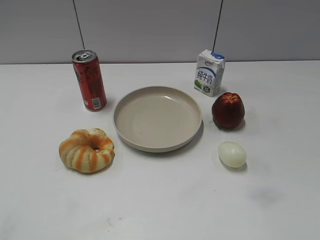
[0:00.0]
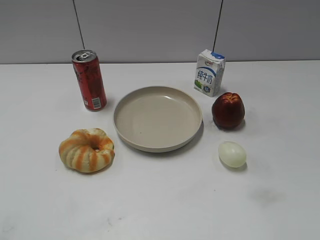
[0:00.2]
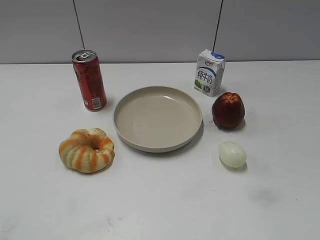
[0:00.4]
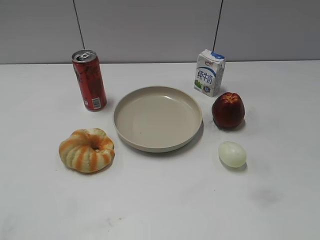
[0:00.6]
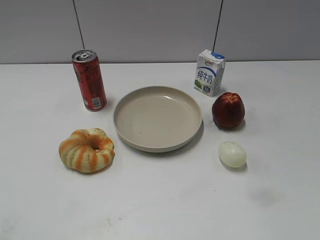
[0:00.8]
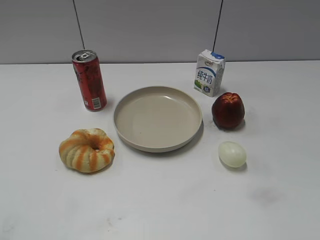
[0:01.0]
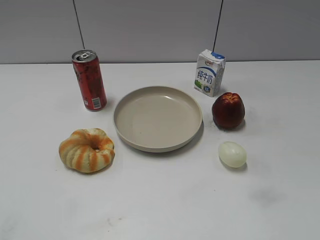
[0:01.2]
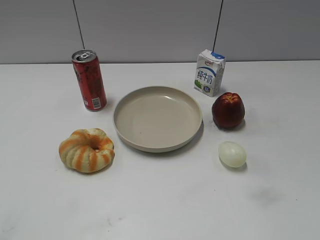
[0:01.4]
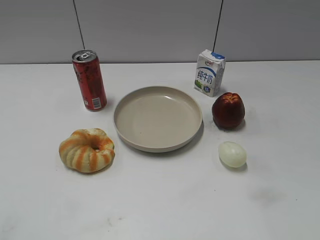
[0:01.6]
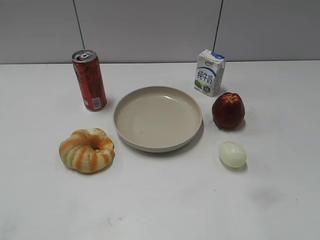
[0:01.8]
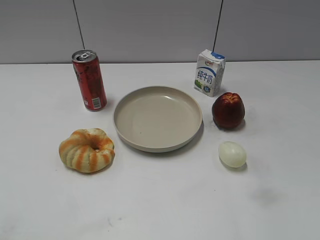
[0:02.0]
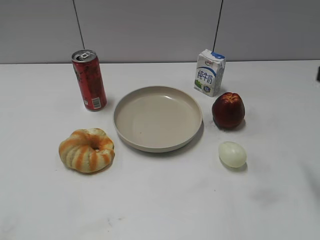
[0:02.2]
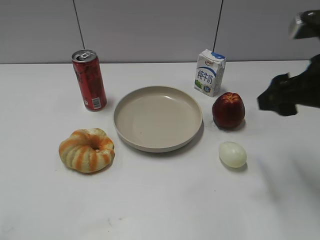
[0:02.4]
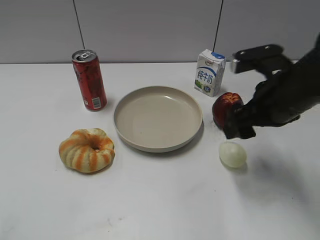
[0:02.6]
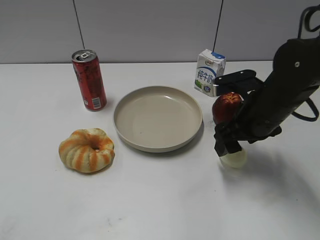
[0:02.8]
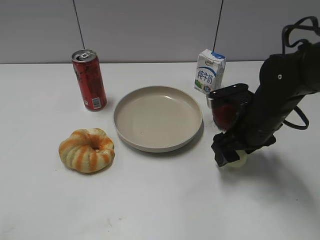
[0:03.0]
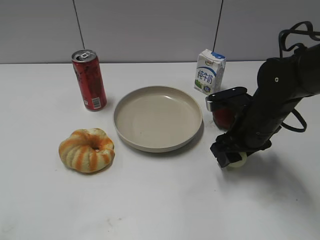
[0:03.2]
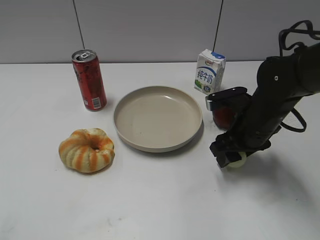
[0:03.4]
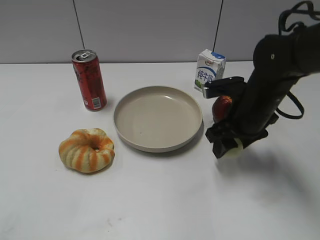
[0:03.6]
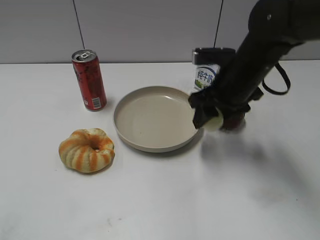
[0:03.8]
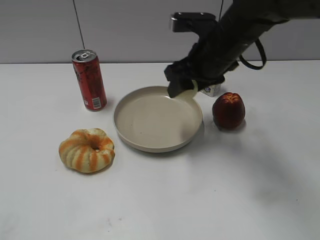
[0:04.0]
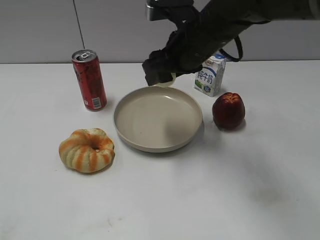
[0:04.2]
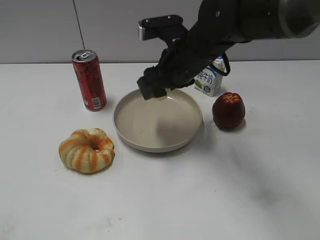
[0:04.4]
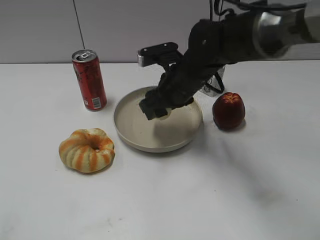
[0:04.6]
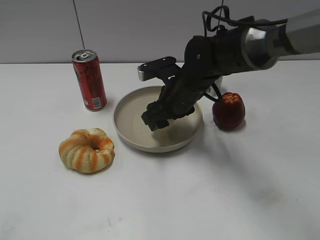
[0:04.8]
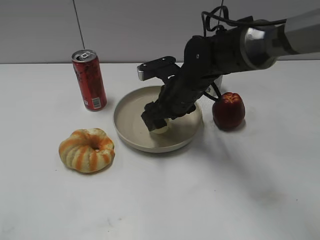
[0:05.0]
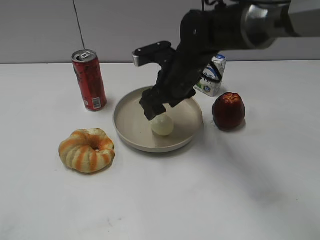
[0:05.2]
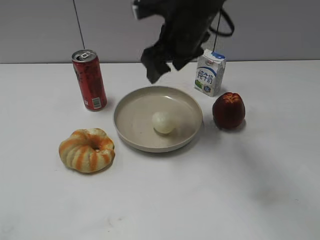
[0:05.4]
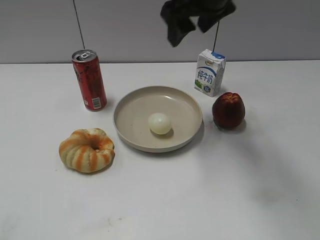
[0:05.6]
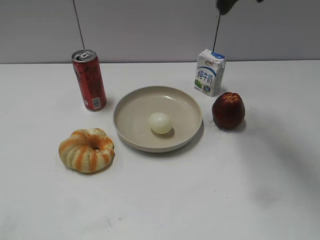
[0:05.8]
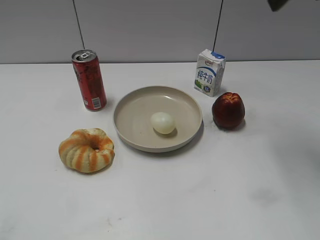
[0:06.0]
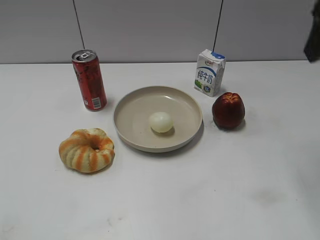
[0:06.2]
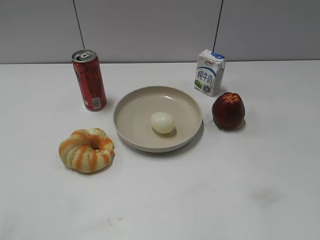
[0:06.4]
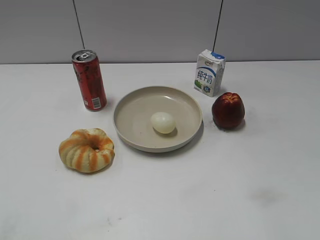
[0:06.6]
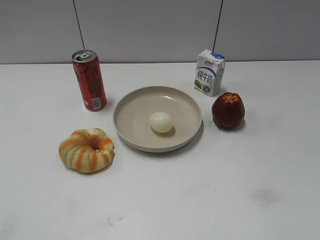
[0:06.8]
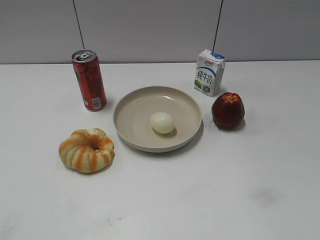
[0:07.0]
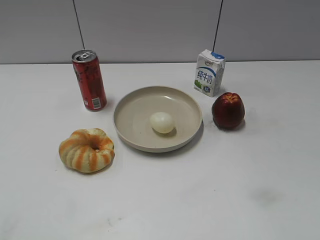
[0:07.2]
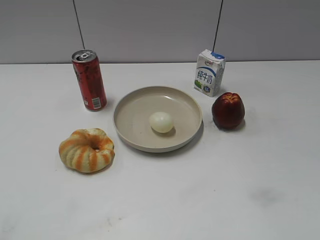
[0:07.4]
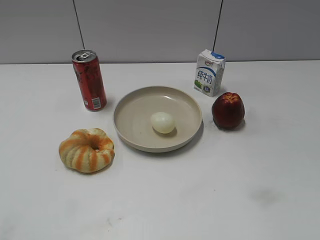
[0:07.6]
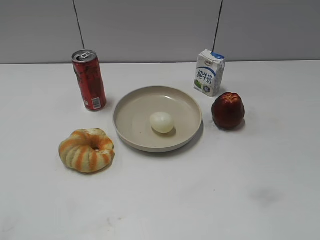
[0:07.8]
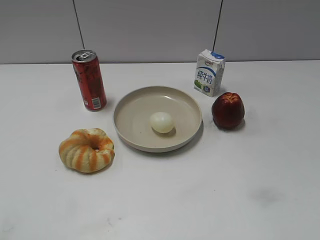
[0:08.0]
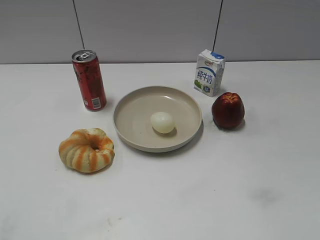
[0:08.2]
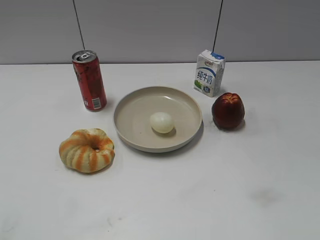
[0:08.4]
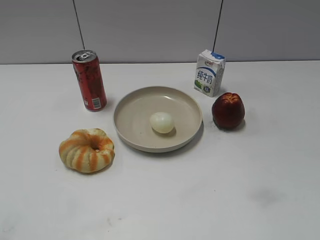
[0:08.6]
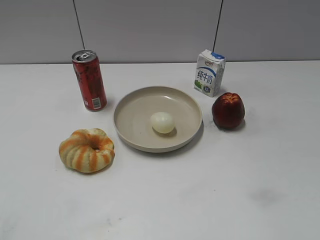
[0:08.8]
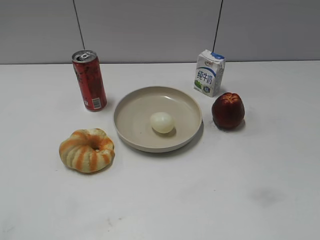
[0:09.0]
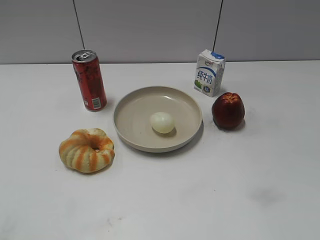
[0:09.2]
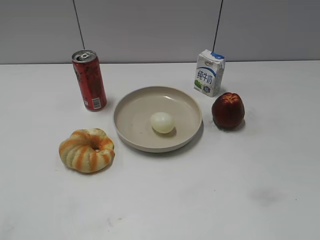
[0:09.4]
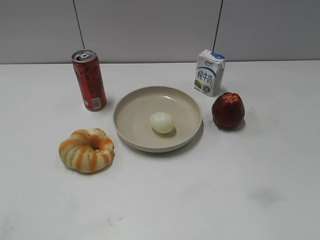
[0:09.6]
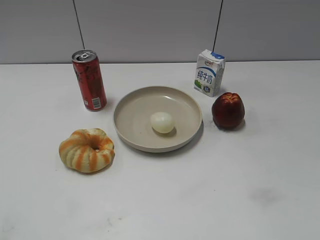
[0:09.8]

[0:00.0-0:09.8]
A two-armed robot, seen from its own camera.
Step, 0:01.4 to 0:03.4: Grasp the egg with right gripper.
Step, 0:03.6 to 0:05.2: Place the egg on the plate with right gripper.
0:01.4 to 0:02.8: The right gripper goes approximately 30 cm forward and to the left, and opens.
0:02.8 to 0:04.2: The right gripper shifts about 10 cm to the left and forward, and closes.
0:04.2 to 0:05.6: The right gripper travels downward and back again, about 10 cm each way, and opens up.
0:05.6 to 0:07.0: The right gripper shifts about 40 cm backward and to the right.
0:08.4 to 0:09.8: Both grippers stay put.

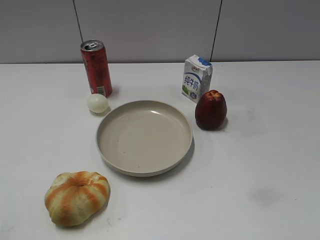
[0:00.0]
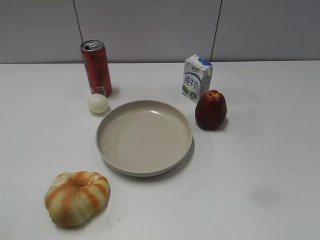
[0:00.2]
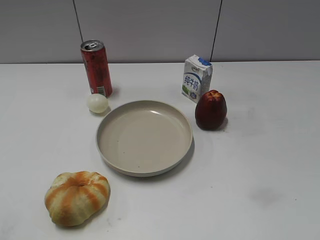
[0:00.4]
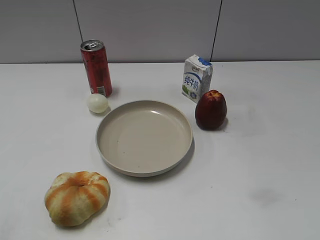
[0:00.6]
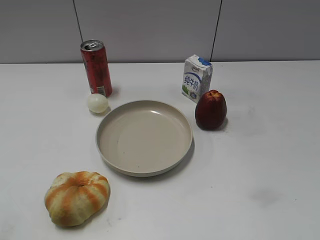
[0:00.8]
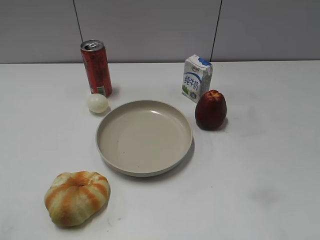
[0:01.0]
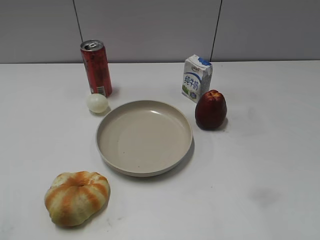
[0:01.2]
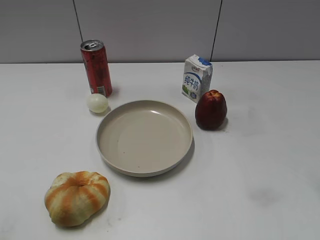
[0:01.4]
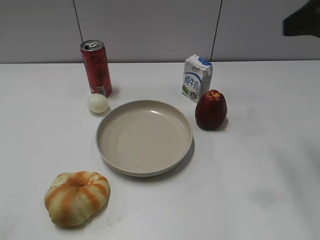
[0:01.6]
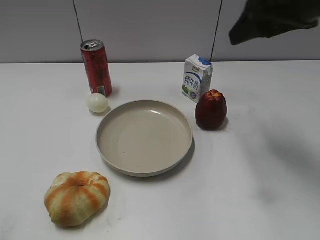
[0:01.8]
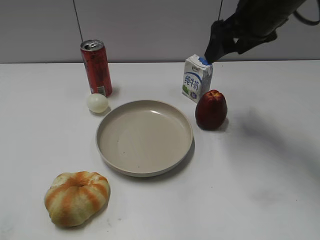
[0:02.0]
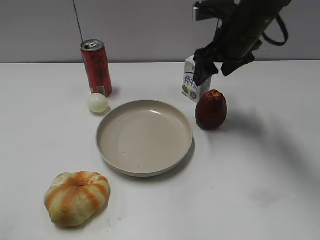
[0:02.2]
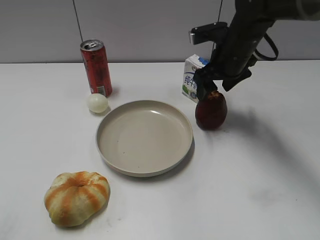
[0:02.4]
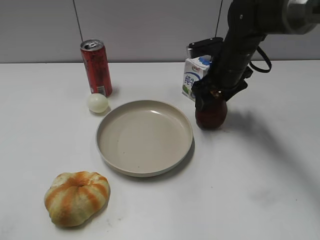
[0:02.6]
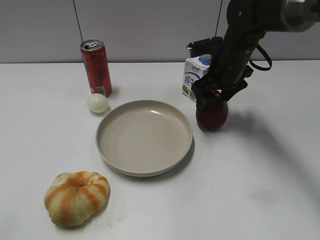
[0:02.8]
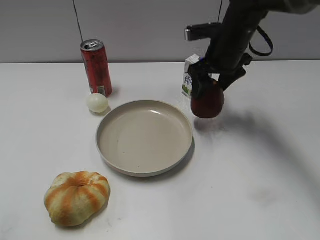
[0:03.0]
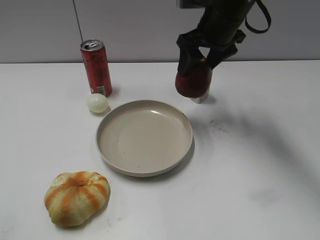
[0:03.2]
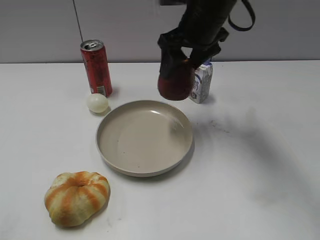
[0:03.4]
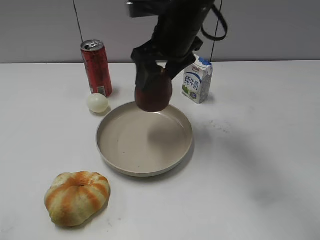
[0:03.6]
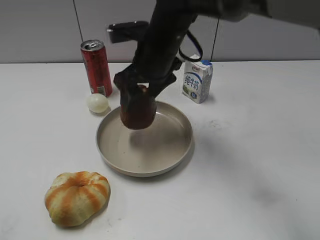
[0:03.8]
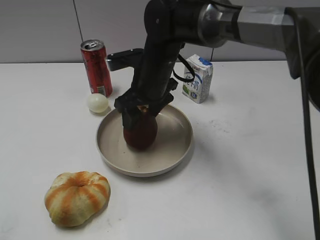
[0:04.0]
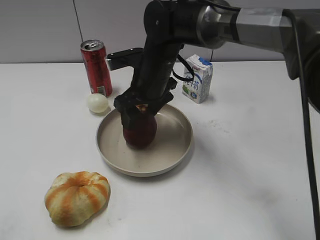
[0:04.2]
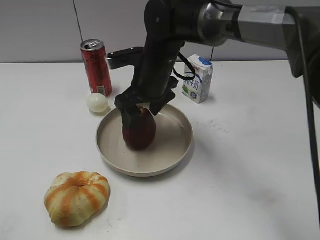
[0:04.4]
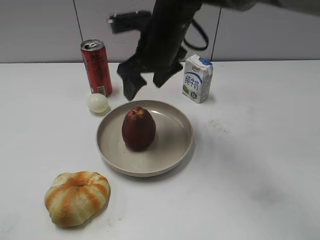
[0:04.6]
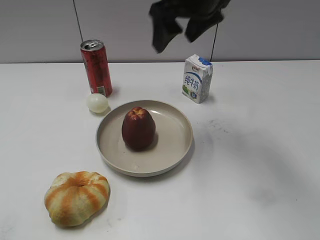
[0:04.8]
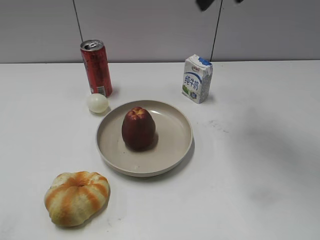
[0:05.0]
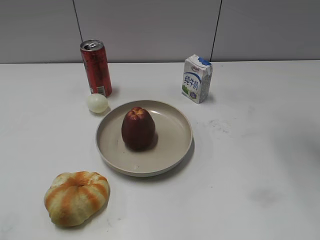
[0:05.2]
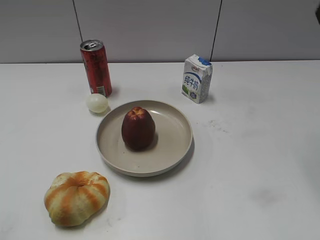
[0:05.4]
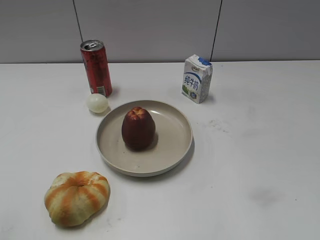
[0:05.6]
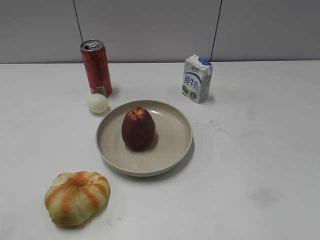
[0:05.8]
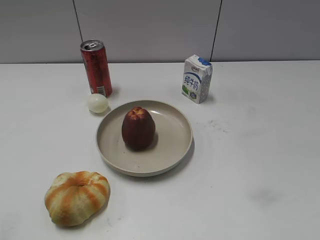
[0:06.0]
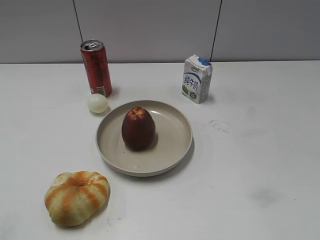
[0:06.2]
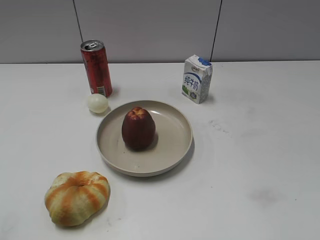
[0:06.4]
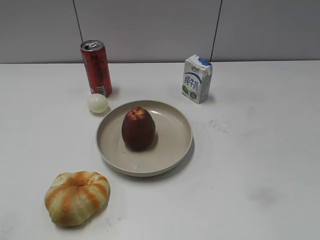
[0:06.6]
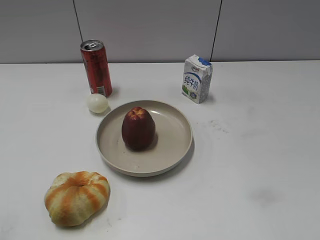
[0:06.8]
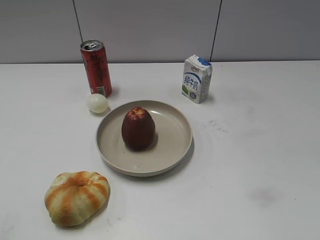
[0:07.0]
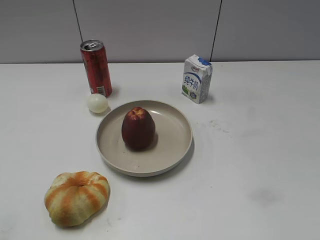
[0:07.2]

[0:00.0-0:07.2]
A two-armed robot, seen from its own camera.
Step, 0:00.8 to 0:02.6: Grasp the apple with right gripper.
Step, 0:02.8 to 0:04.4: Place the apple on the plate with right gripper.
0:01.4 to 0:02.8: The right gripper travels forward, downward and to the left by approximately 35 cm, and closes its fingers.
0:02.8 to 0:04.4: The right gripper is displaced to the left by roughly 15 cm, and opens its fingers.
0:04.4 to 0:05.8: The right gripper shifts approximately 40 cm to the right, backward and upward, and closes its fingers.

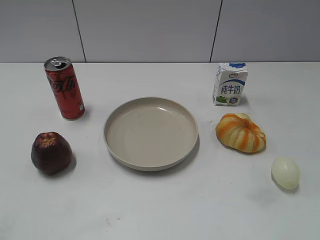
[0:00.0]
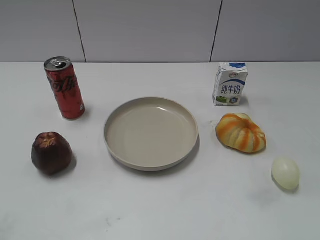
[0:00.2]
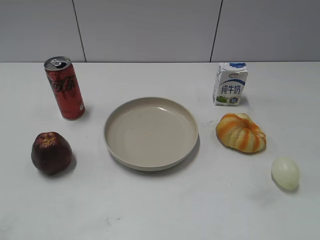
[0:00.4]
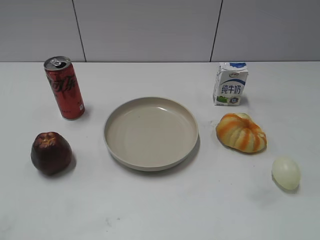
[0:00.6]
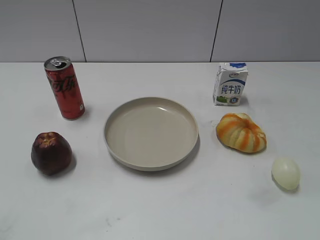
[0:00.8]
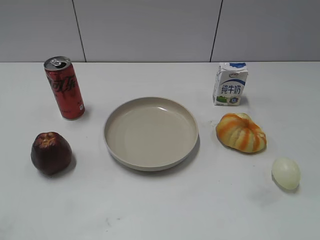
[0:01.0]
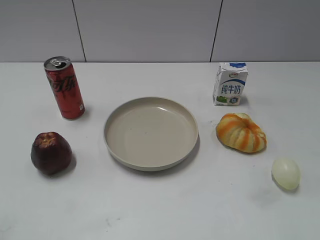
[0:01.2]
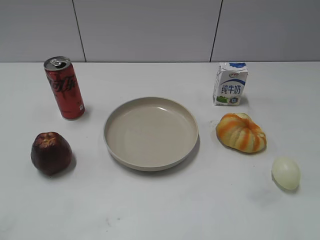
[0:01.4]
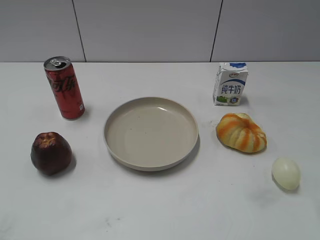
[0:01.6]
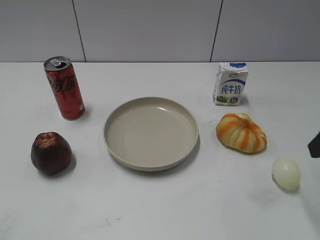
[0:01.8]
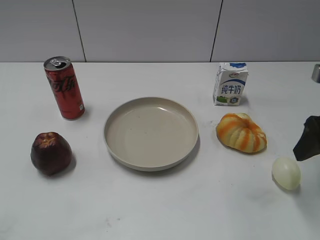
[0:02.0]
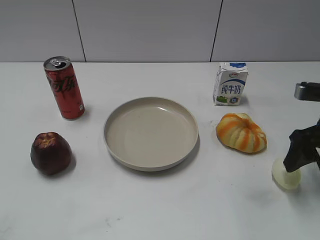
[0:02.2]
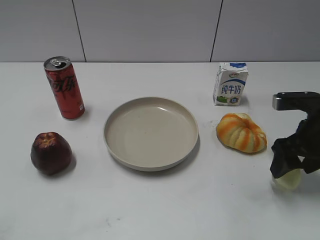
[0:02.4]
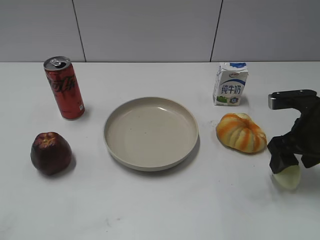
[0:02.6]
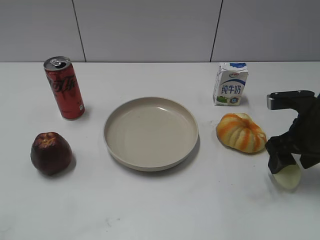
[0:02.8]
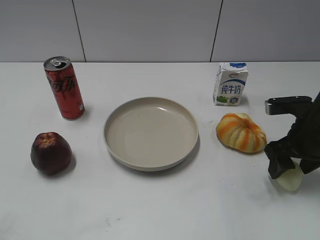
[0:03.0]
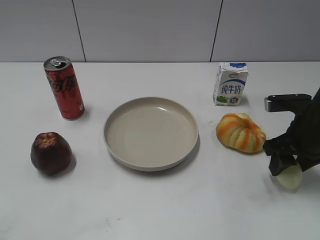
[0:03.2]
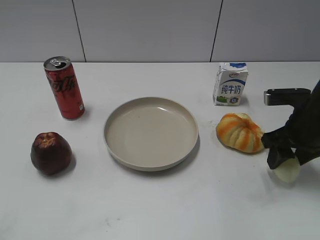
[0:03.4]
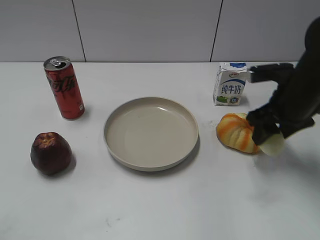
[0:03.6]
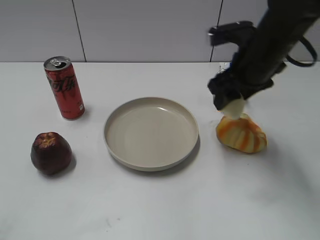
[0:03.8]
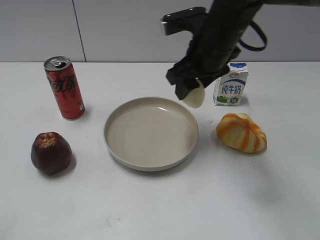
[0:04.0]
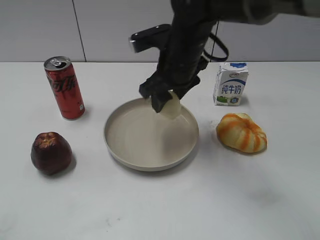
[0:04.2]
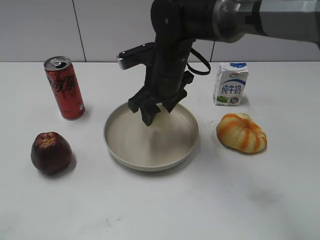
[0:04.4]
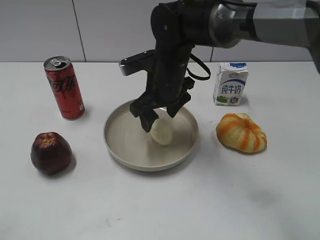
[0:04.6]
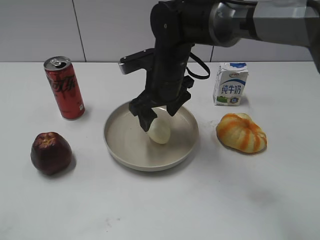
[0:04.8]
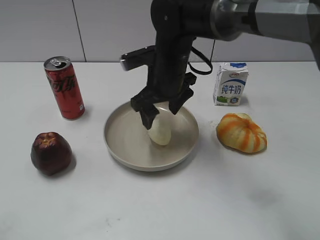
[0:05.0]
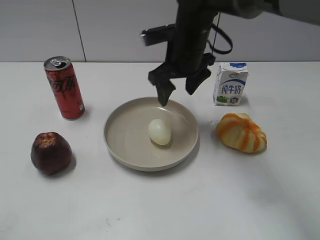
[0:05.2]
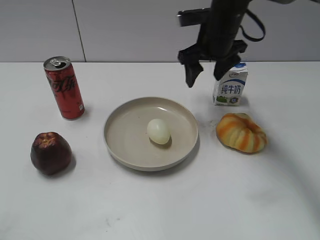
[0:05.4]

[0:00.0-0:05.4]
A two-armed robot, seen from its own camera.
Step, 0:00.0 to 0:03.2: Grasp the egg with right gripper.
Step, 0:03.4 to 0:05.0: Place the egg on the plate with right gripper.
0:01.4 to 0:02.8: The right gripper travels forward and downward by roughly 25 cm.
0:02.8 to 0:04.0: The right gripper travels to the left and upward by approximately 20 cm, and closes up.
0:04.0 to 0:05.4: The right gripper moves forward, about 10 cm, goes to the left and returns, roughly 5 cm each way, and opens.
